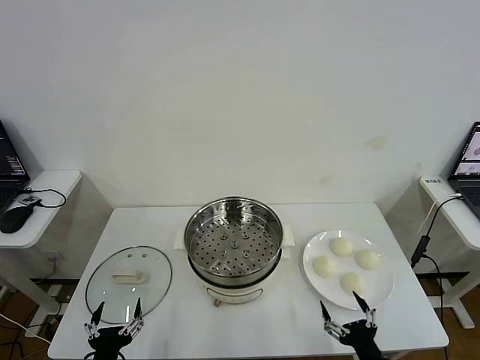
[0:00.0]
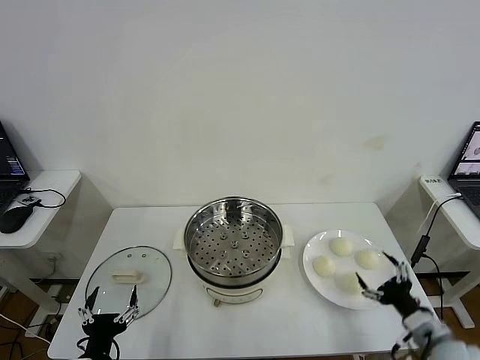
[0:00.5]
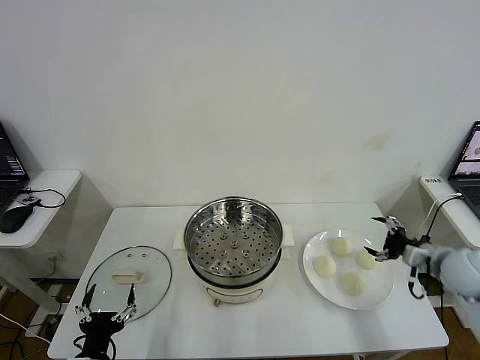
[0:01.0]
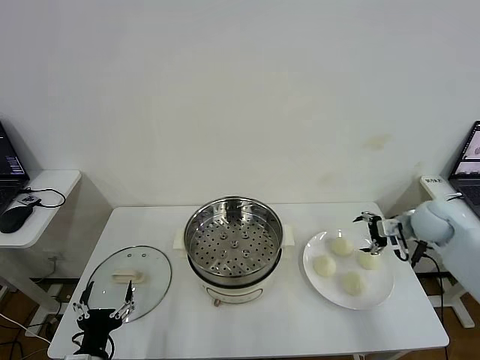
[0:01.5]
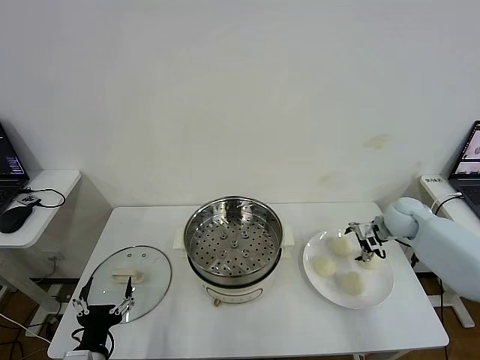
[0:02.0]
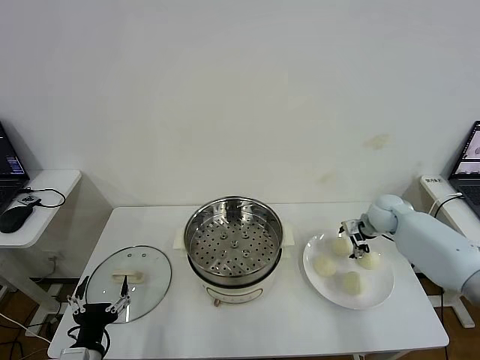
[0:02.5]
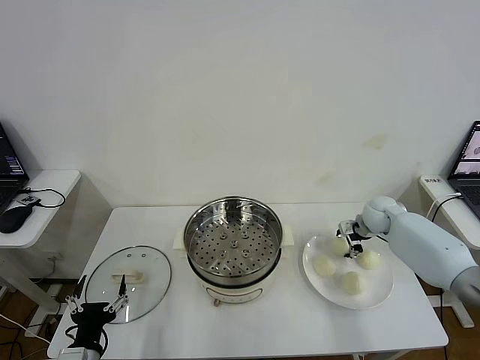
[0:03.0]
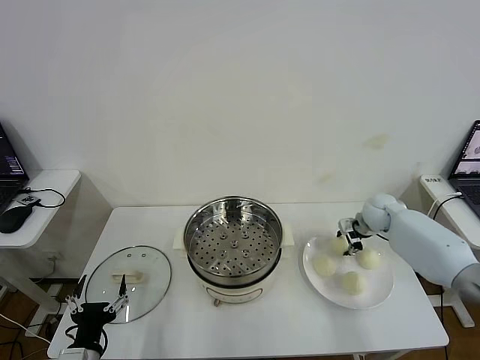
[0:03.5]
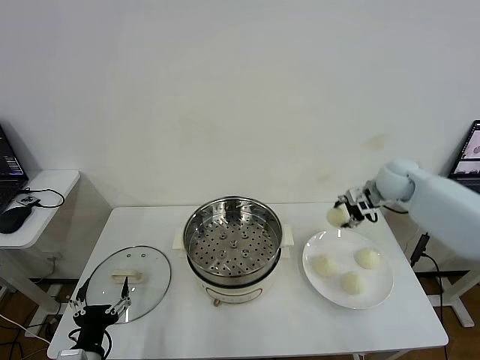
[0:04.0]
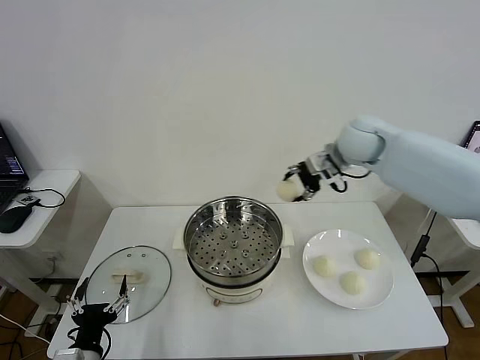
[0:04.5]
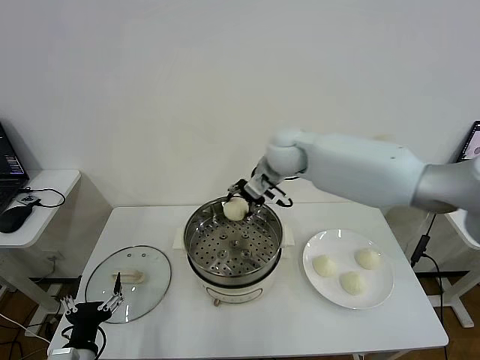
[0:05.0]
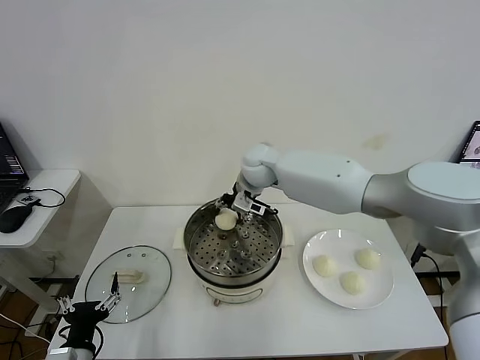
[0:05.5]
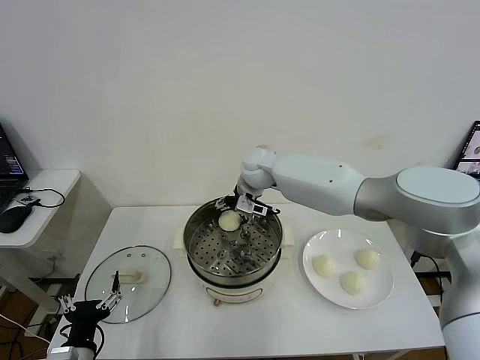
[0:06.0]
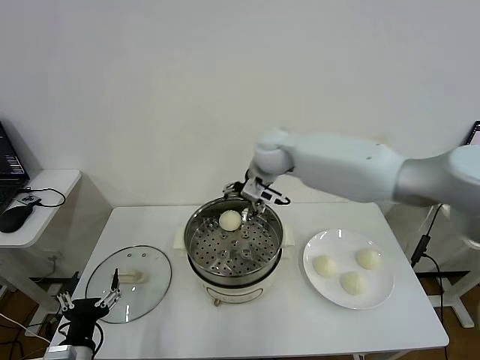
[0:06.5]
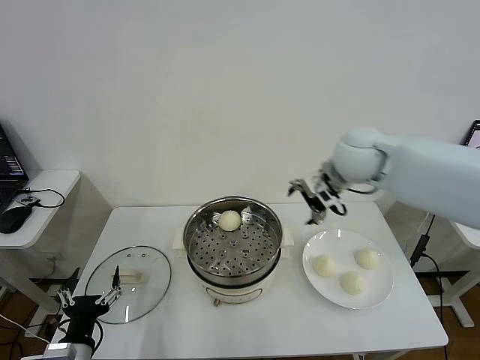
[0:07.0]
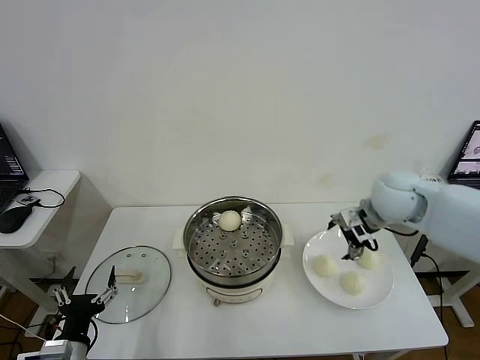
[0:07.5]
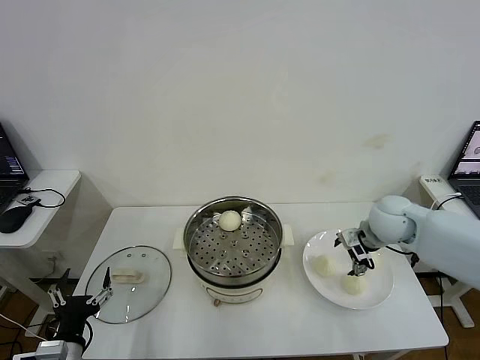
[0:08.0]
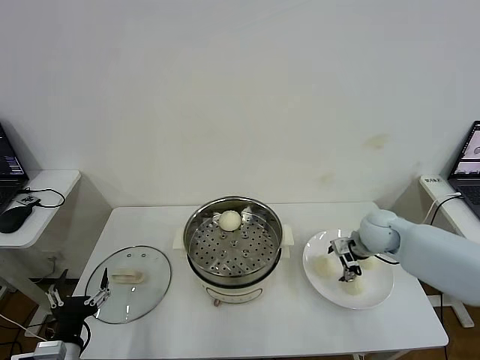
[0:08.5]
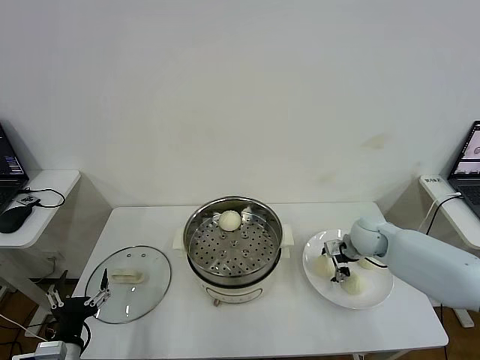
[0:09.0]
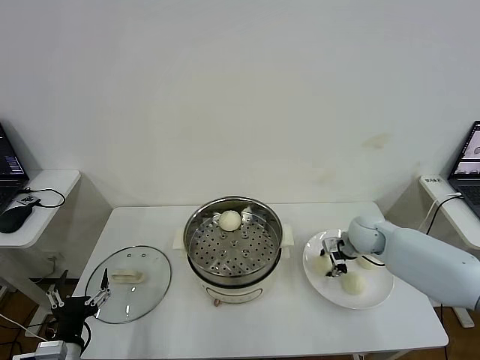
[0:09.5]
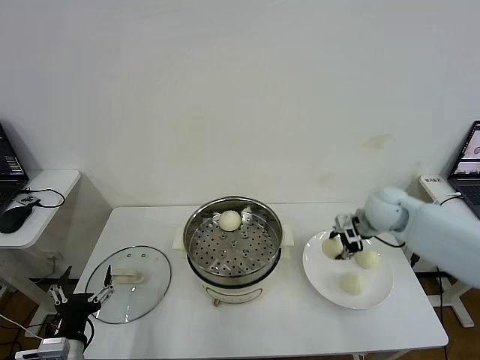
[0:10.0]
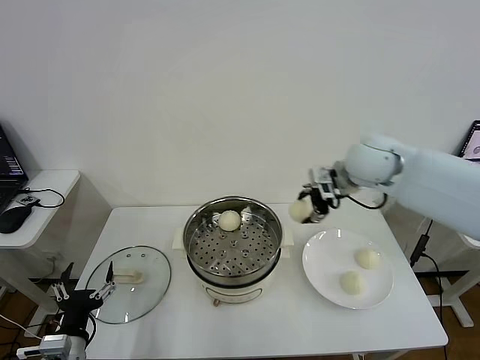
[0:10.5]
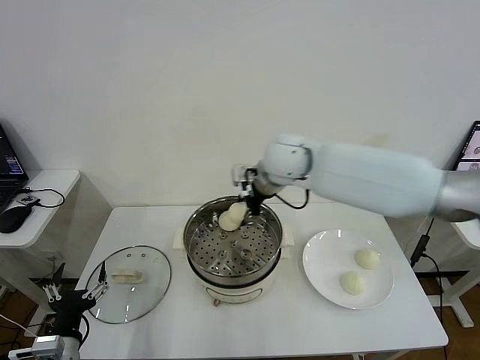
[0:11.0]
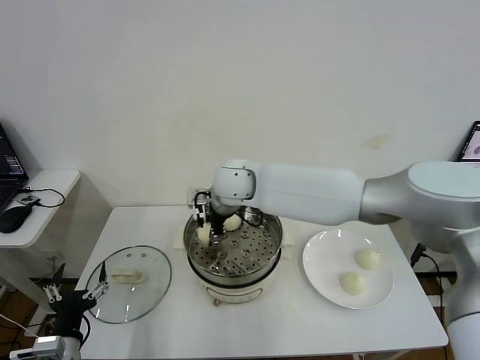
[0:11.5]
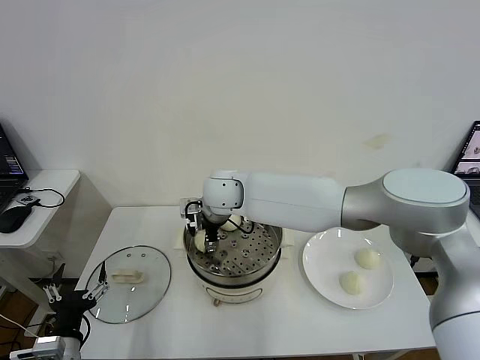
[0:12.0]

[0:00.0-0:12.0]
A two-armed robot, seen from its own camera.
Step, 0.0 to 3.0 s: Grasp the baozi in the plate with right gripper.
Step, 3.5 to 6.0 s: Place the baozi on the steamer with right gripper.
Step, 6.5 to 9.5 s: Grasp the baozi in the plate with right gripper.
2.0 to 4.0 s: The right gripper moves upward, about 15 cm, and closes its fingers.
4.0 to 6.0 s: The right gripper heads to the left, covering some 30 cm, and opens up.
6.0 to 8.0 s: The right gripper goes some 30 cm to the right and backward.
8.0 to 10.0 s: The right gripper moves some 5 cm, and closes up.
10.0 to 12.0 s: The right gripper goes approximately 35 cm to the left, and opens its fingers.

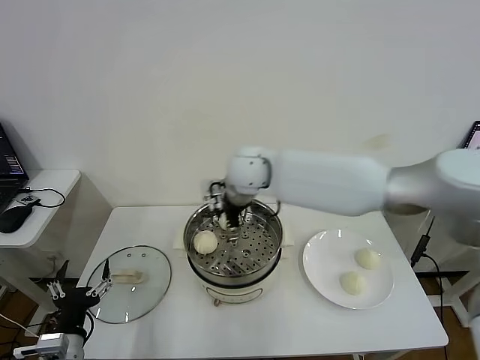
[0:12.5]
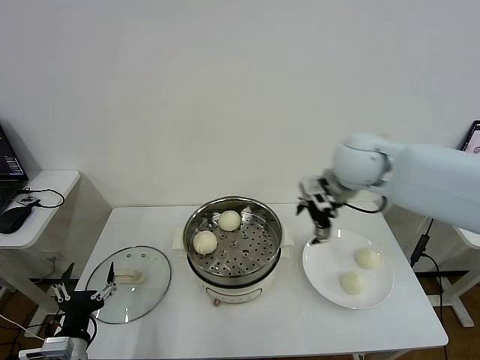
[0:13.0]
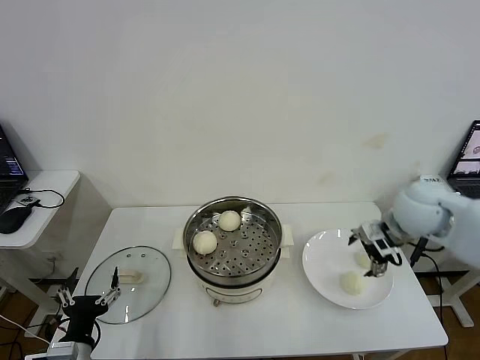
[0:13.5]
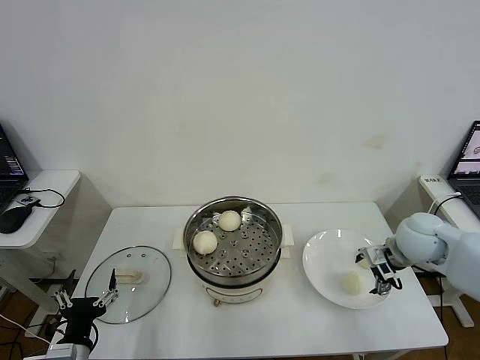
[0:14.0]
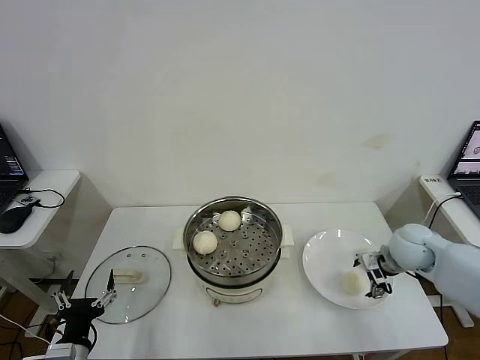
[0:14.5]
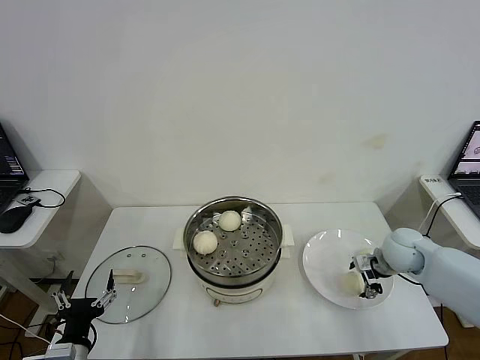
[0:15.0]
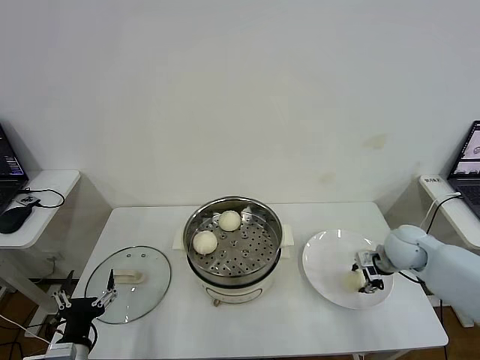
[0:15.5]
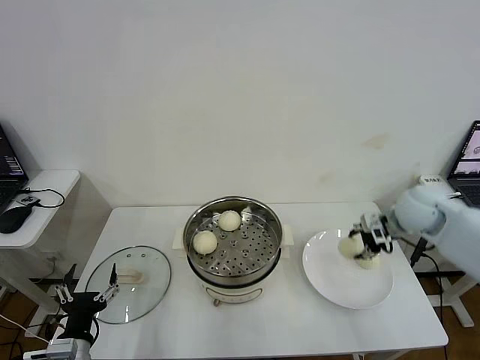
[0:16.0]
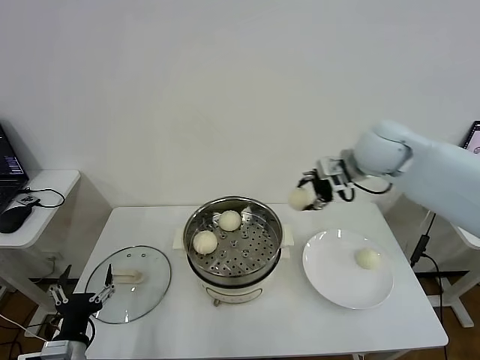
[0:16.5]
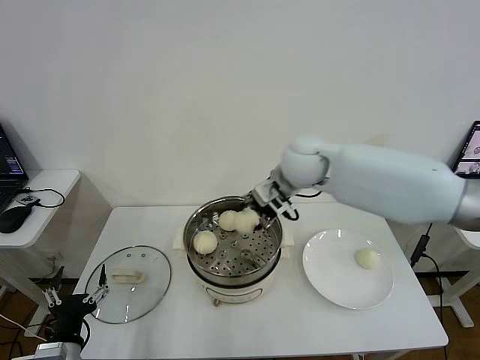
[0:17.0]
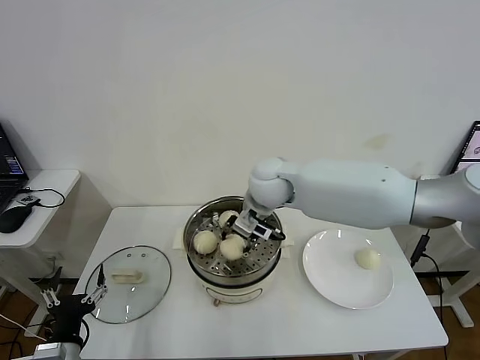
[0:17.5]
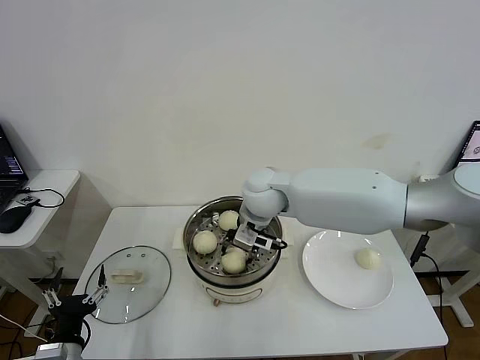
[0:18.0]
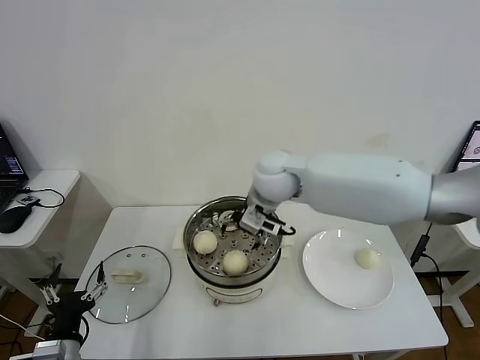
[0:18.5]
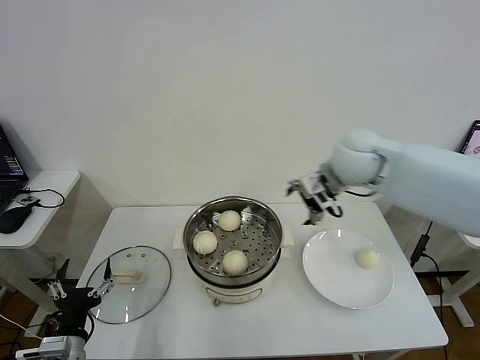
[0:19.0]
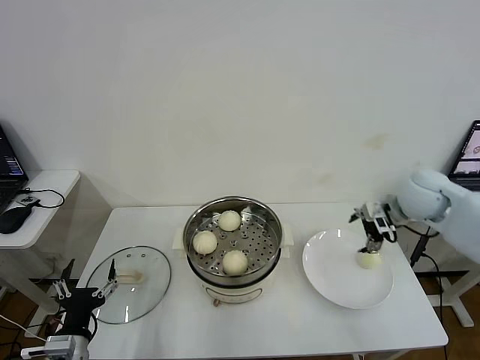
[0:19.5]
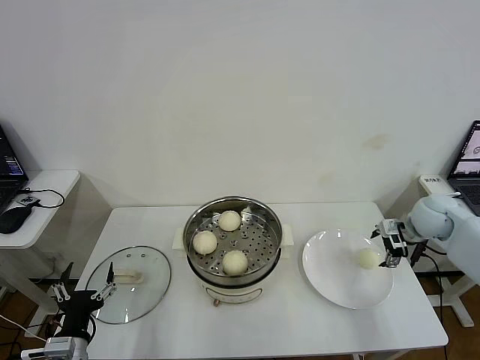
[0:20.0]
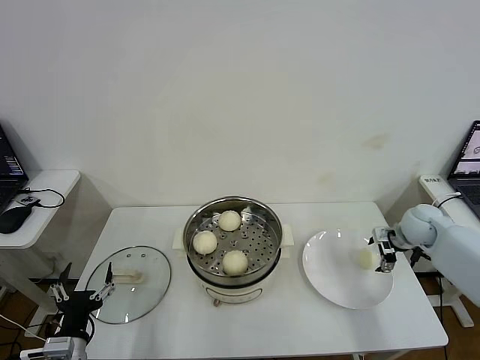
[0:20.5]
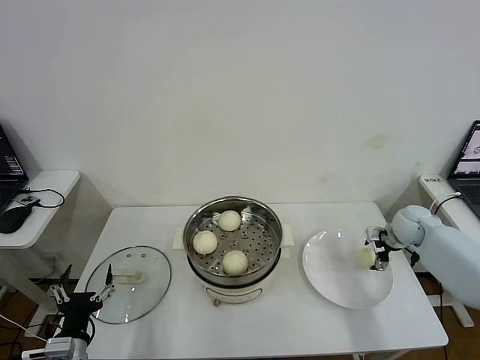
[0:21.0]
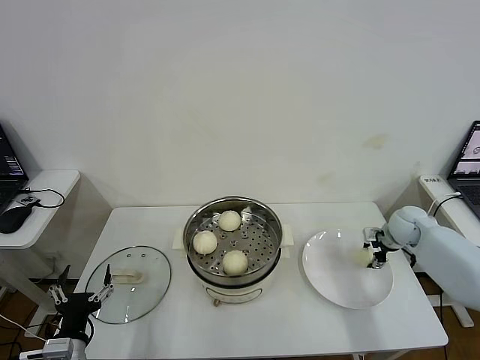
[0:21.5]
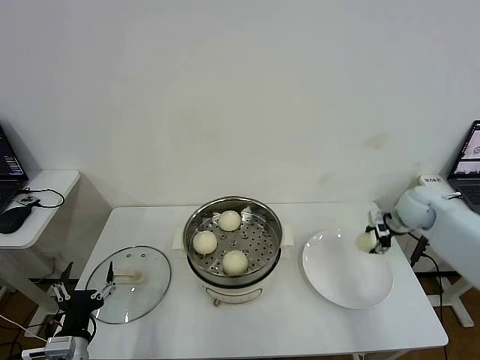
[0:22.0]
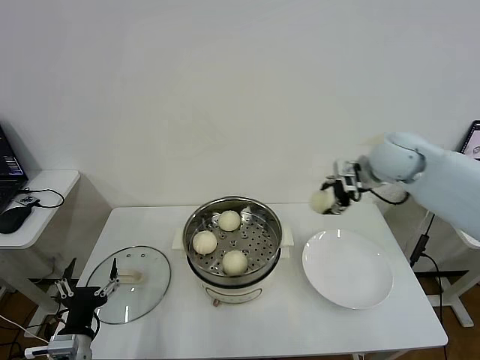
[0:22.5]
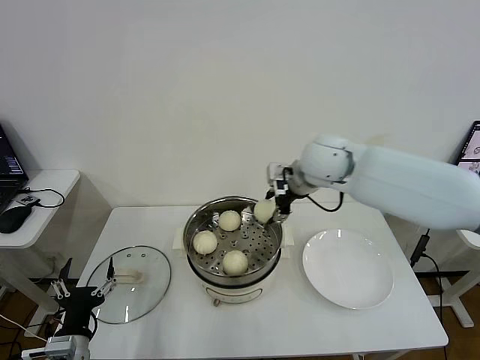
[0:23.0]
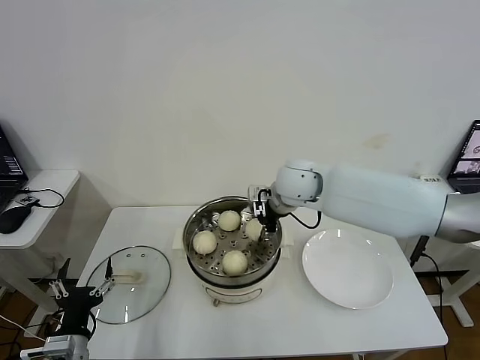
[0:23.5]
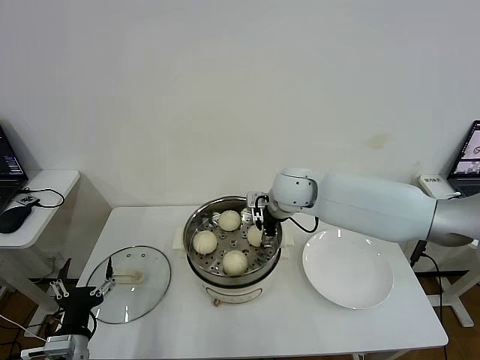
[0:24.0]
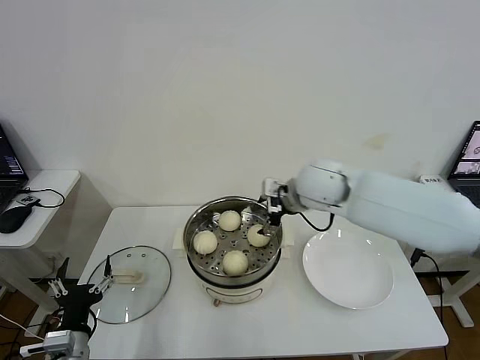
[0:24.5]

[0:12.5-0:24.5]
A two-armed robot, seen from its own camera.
Step, 12.5 to 15.0 s: Grasp the baozi in the plate with right gripper.
Step, 15.5 to 18.0 s: Place the baozi on the steamer with right gripper.
Step, 18.5 to 21.0 s: Grasp the baozi in the plate with right gripper.
Step, 21.5 to 24.0 s: Place the baozi on the steamer with right gripper.
12.5 to 14.5 s: The right gripper shifts roughly 40 cm to the right and downward.
14.5 to 16.5 s: The right gripper heads upward and to the left, covering some 25 cm, and closes.
16.5 to 18.5 s: The right gripper moves to the left, approximately 15 cm, and opens.
18.5 to 20.5 s: The right gripper is displaced to the right and downward by about 40 cm.
20.5 to 22.5 s: The right gripper travels upward and to the left by about 25 cm, and closes its fingers.
22.5 to 24.5 s: The right gripper heads to the left, covering some 15 cm, and opens.

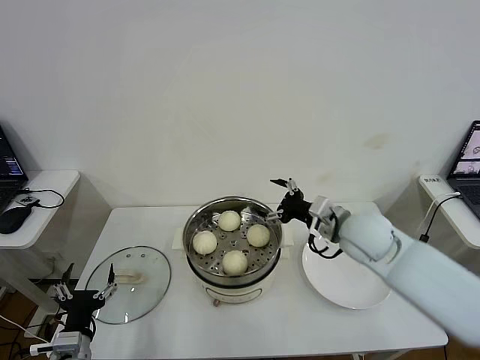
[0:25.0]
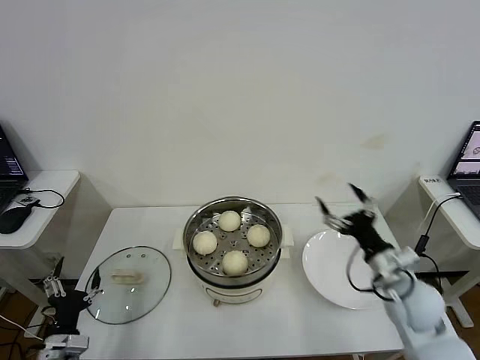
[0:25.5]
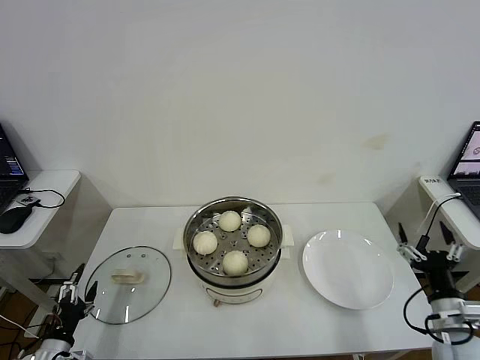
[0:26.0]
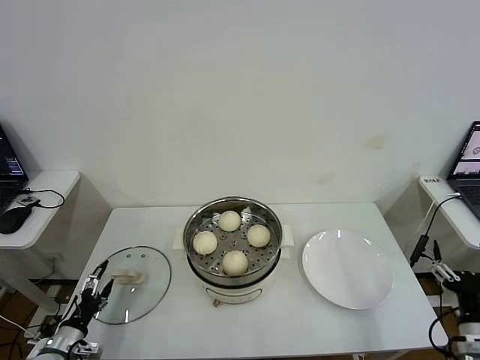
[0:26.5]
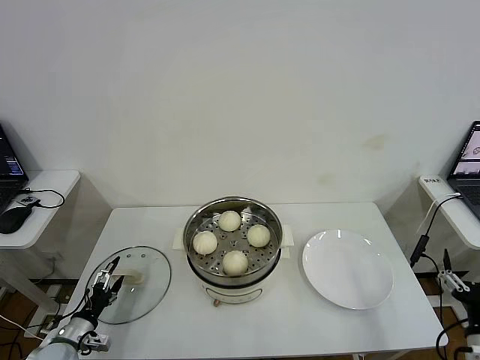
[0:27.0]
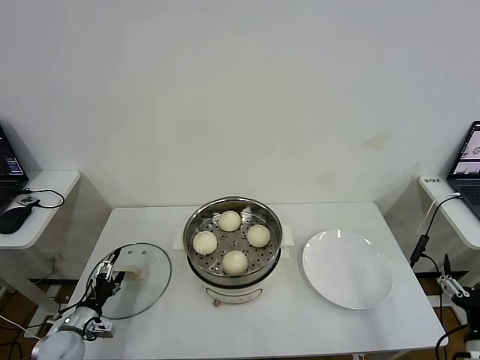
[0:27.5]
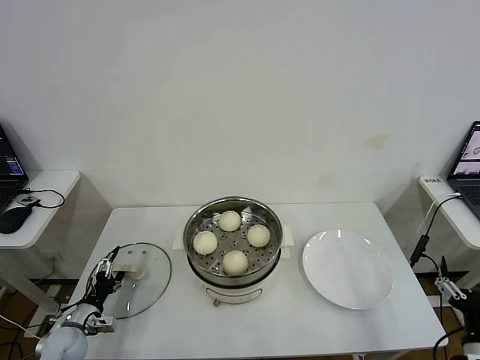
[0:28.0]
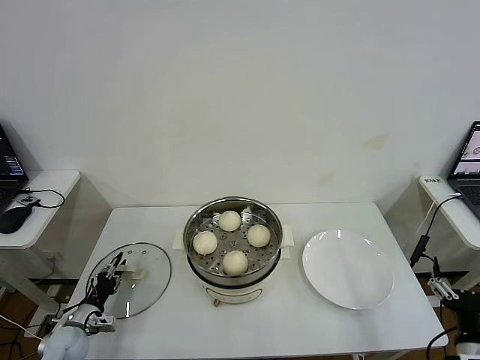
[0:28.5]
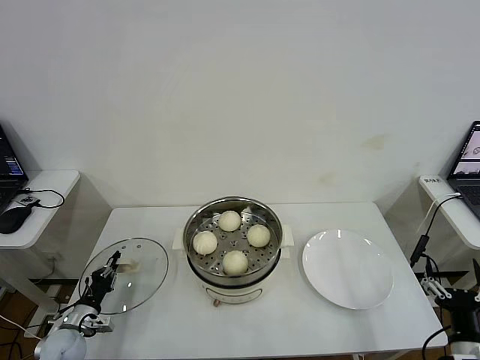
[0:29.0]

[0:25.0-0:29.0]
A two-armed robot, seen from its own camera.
Step, 25.0 to 28.5 s: Grasp the pot lid with left gripper.
25.0 to 27.0 s: The right gripper heads backward, to the right and downward, covering roughly 35 cm. Meanwhile the left gripper goes approximately 15 cm to the left, downward and forward.
27.0 to 29.0 s: The left gripper closes up.
